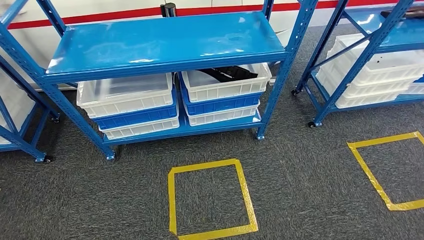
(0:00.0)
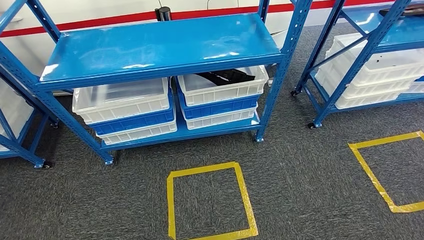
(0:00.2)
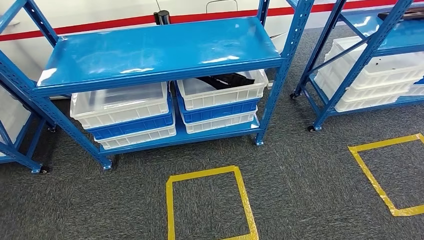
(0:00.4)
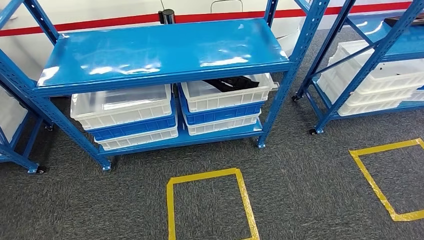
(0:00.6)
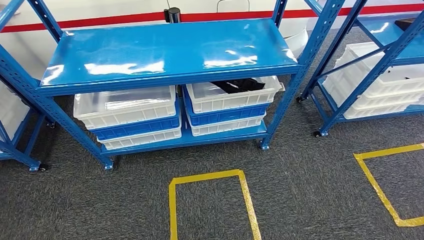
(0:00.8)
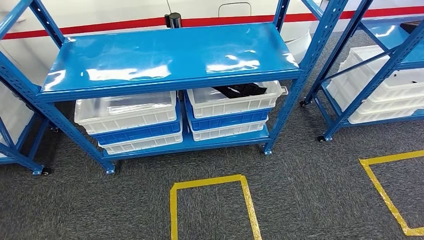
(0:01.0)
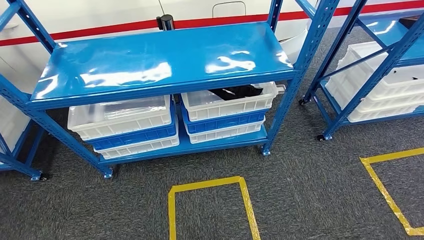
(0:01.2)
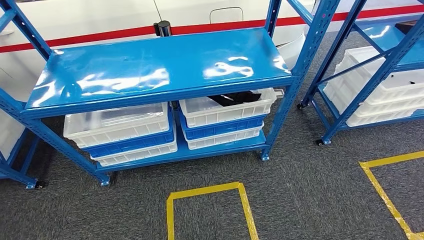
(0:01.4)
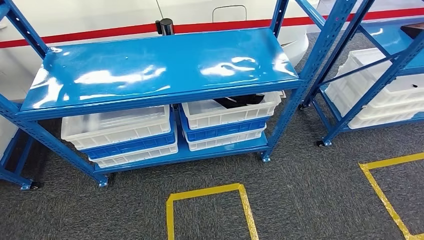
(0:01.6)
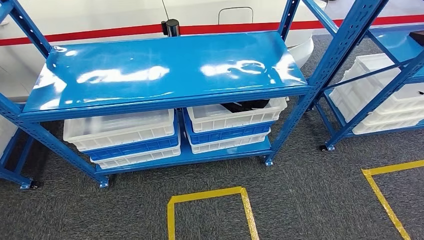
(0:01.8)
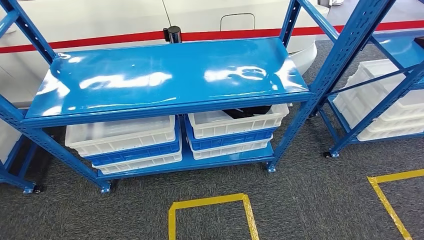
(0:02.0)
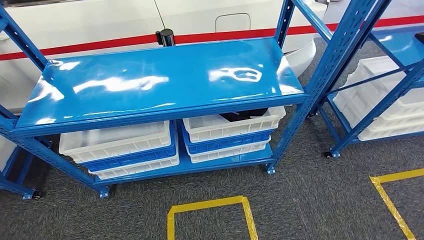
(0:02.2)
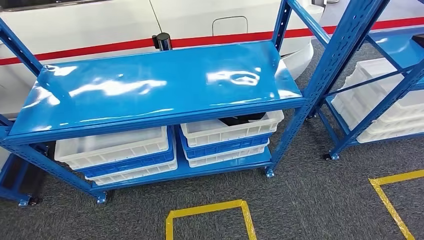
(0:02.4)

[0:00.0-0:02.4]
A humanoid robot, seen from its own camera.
Step, 0:00.0 to 0:02.2: Move to the initial position of the shelf.

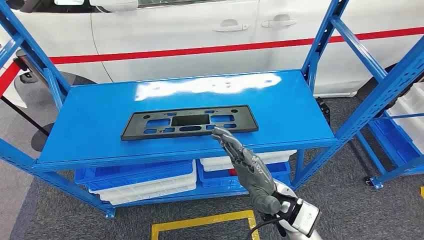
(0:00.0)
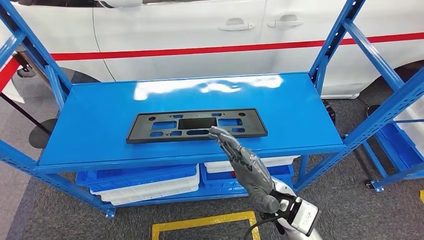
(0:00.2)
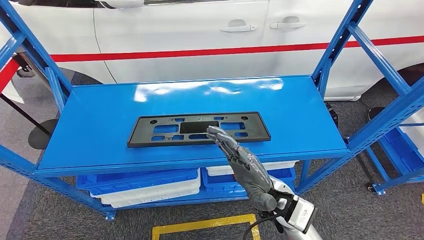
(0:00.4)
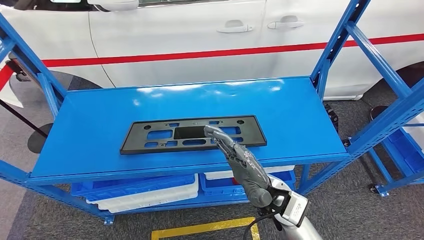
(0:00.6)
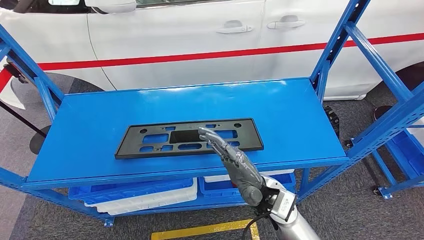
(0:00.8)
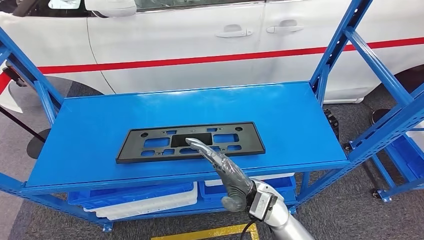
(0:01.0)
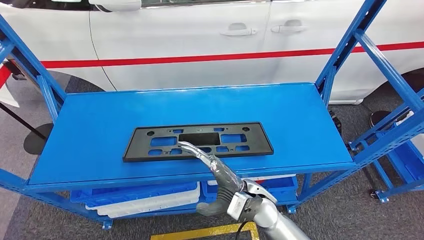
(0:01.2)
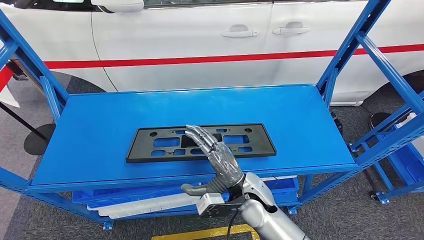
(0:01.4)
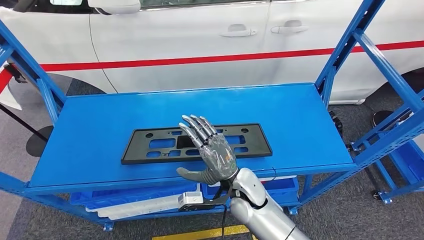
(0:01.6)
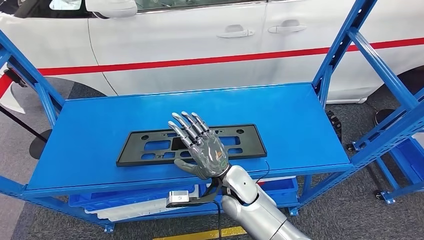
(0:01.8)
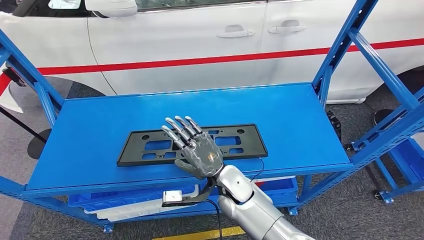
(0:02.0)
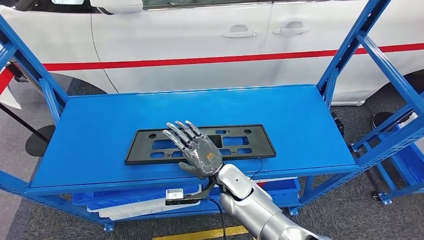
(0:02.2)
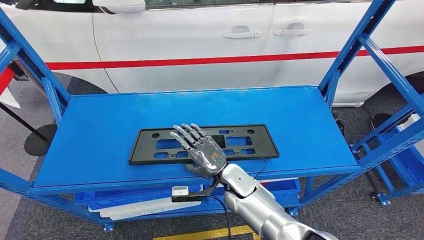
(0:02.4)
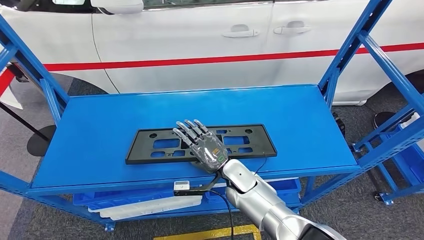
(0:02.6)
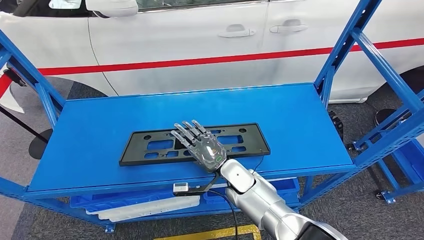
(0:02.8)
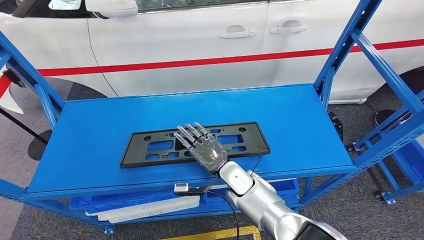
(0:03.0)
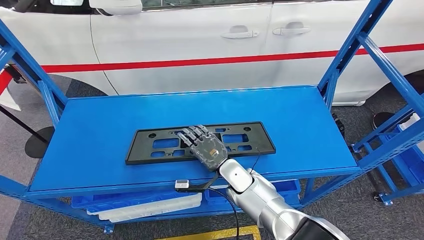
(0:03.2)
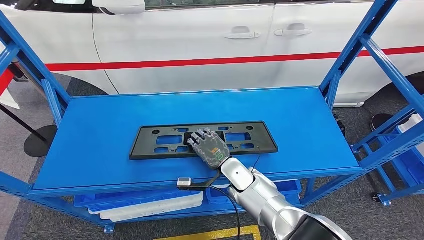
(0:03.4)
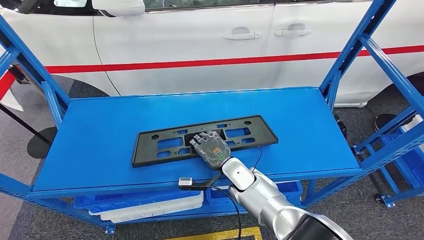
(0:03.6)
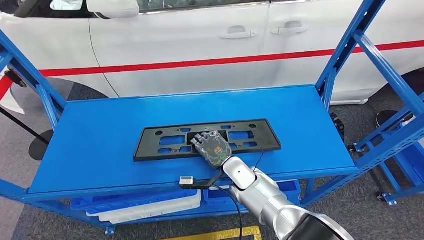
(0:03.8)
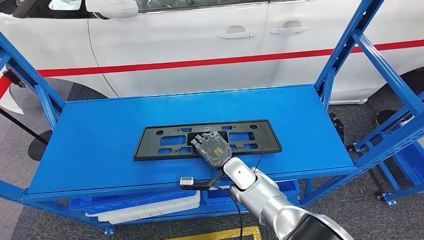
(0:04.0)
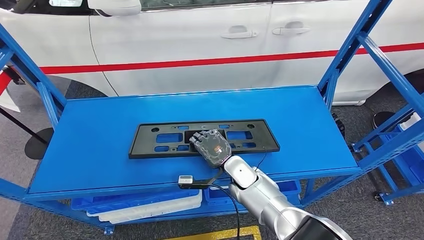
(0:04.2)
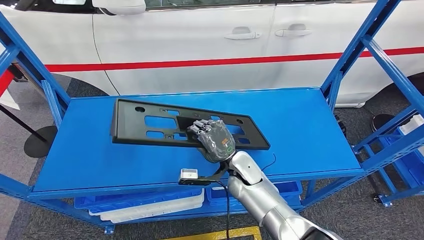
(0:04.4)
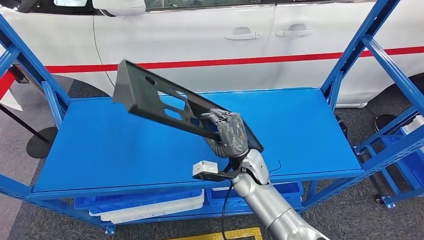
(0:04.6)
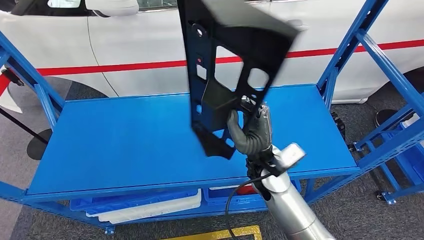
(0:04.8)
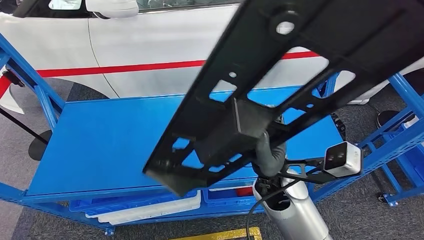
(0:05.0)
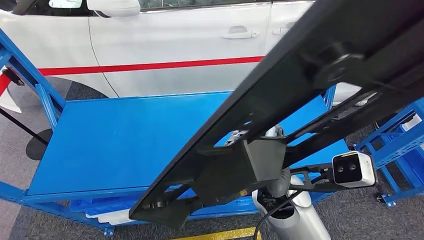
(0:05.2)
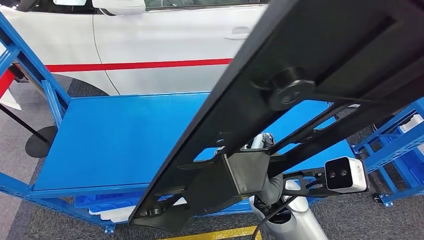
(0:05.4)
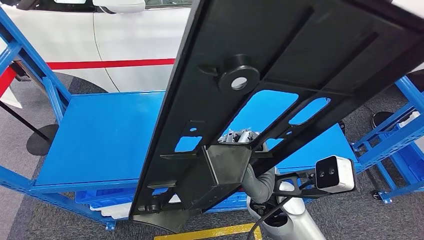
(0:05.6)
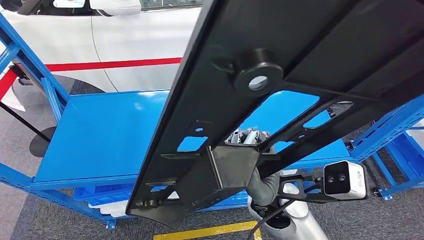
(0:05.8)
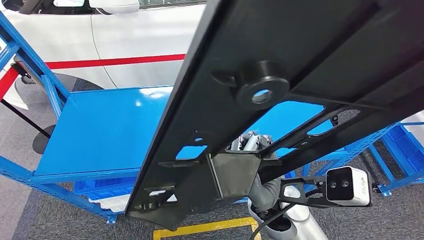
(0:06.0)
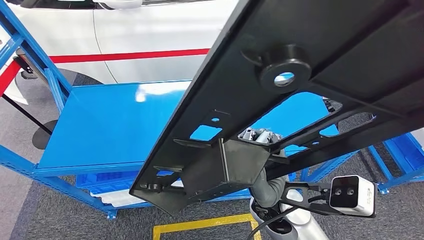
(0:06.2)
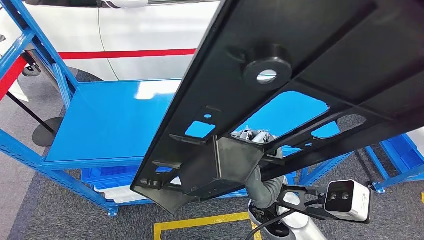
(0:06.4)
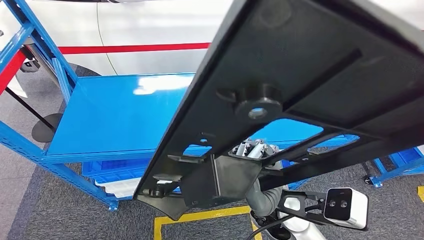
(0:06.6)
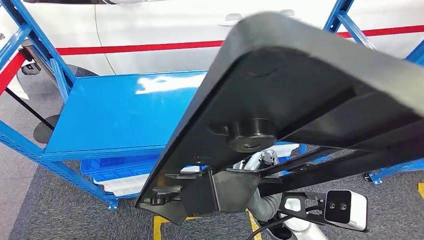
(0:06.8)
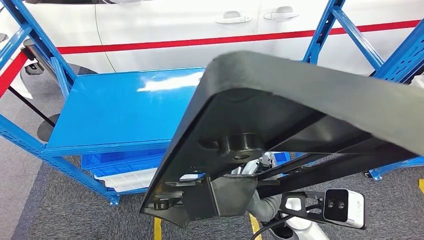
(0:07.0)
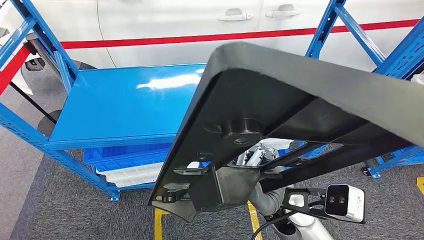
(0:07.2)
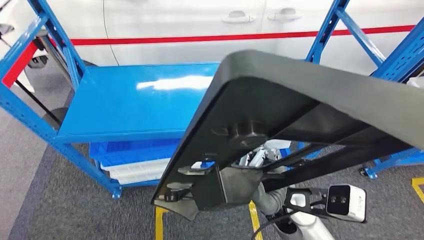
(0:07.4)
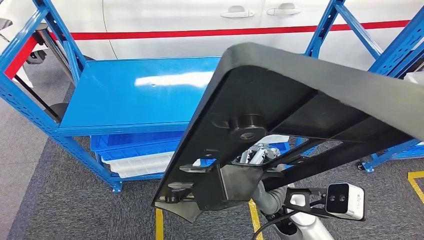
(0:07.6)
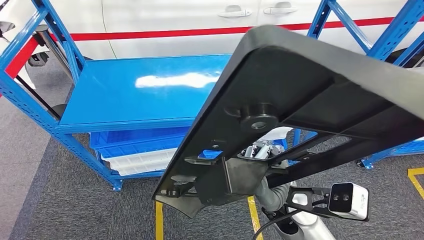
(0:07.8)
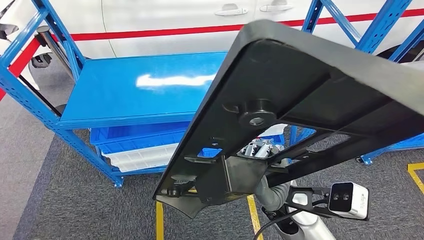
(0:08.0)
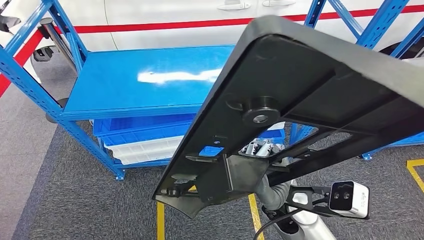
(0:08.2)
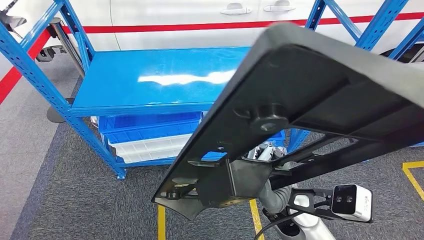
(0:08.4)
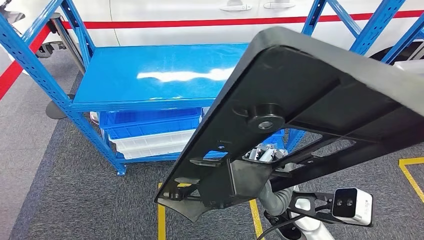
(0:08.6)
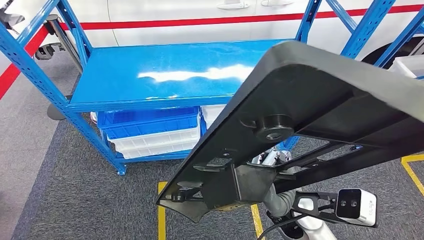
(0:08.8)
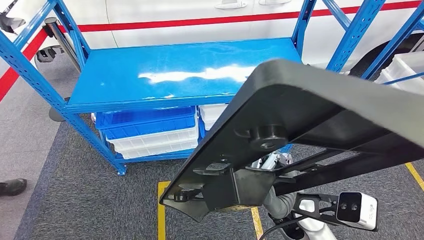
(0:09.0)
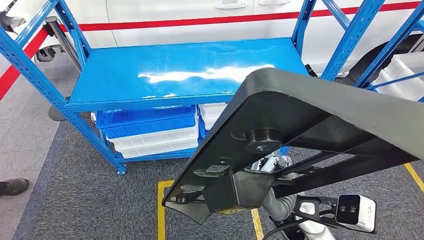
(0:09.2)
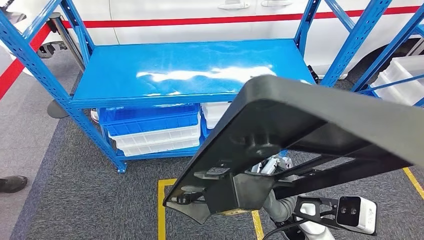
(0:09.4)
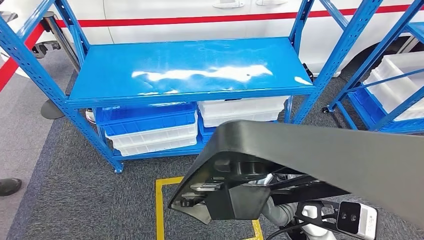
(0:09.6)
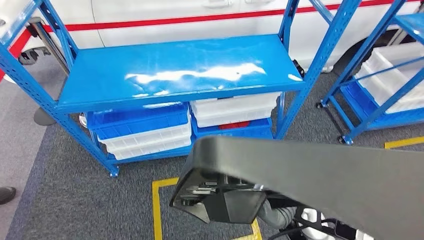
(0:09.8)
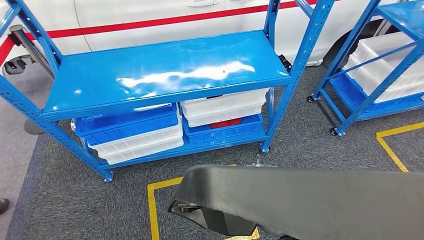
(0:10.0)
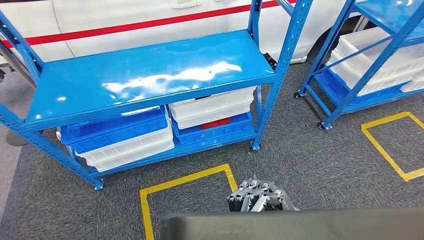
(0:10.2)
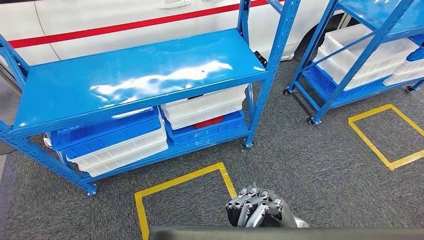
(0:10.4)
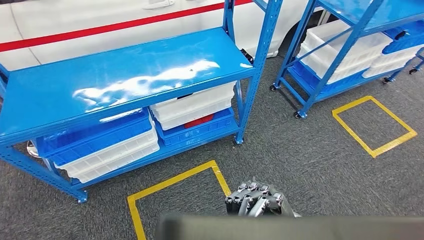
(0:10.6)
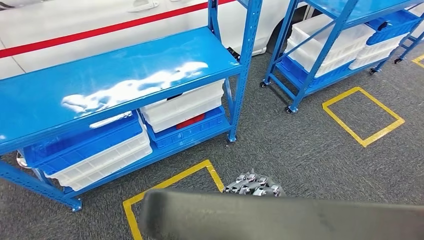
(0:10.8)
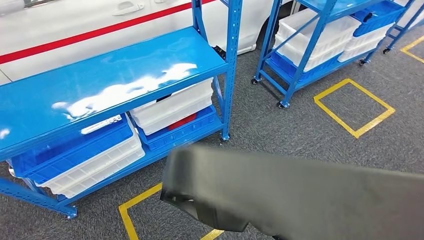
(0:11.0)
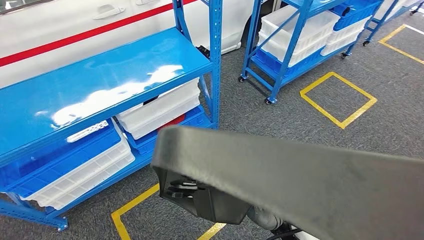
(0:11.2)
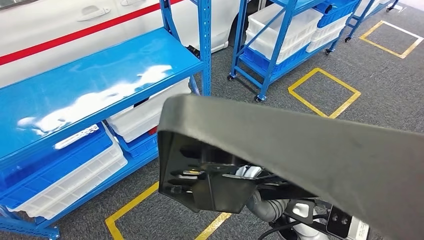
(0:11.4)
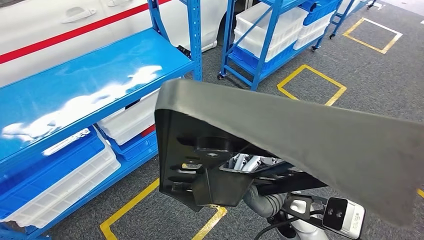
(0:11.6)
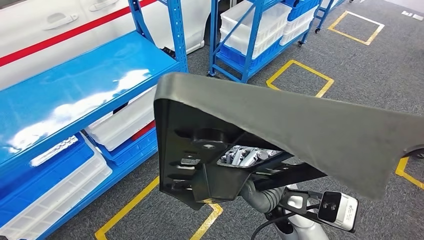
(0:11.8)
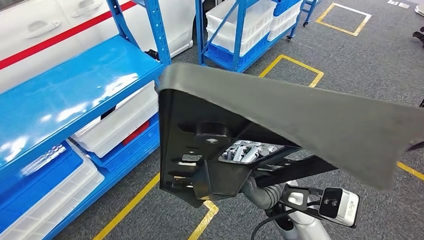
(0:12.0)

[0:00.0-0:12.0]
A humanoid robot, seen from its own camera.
Step, 0:00.0 to 0:05.6: Pick up the large material from the shelf.

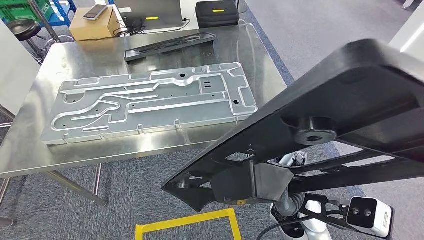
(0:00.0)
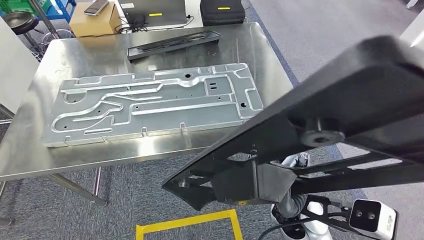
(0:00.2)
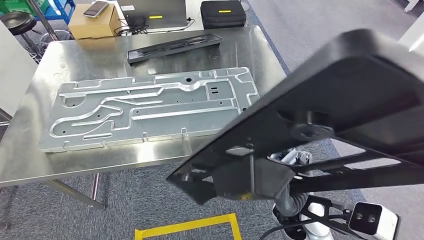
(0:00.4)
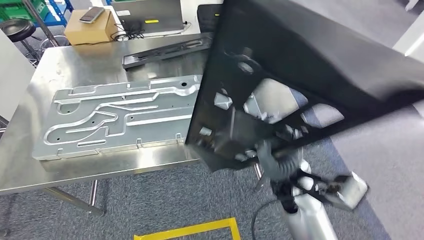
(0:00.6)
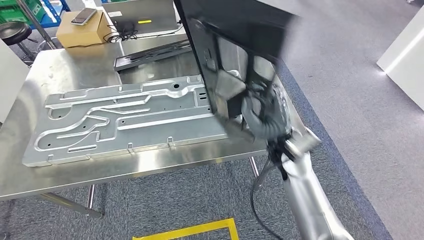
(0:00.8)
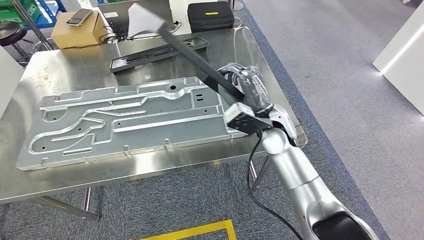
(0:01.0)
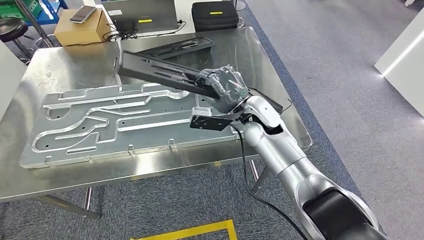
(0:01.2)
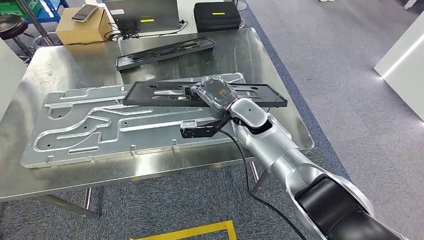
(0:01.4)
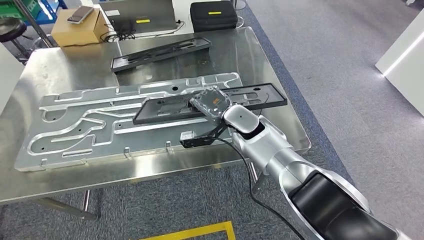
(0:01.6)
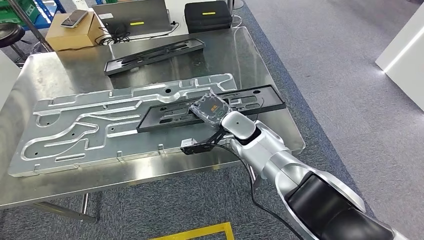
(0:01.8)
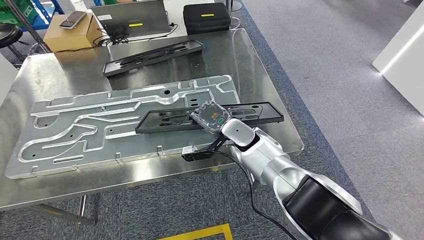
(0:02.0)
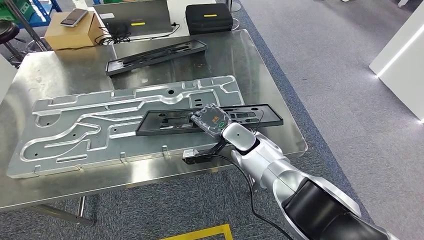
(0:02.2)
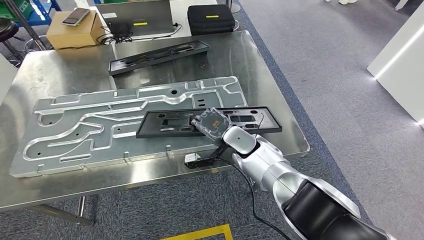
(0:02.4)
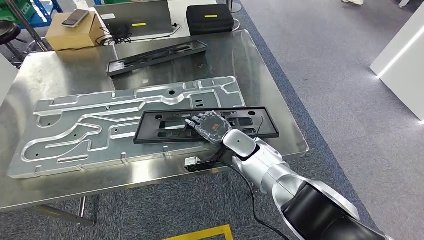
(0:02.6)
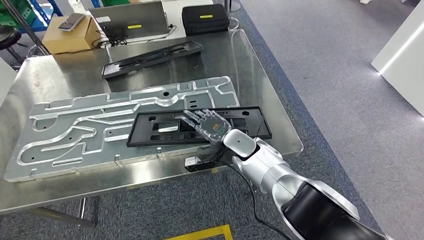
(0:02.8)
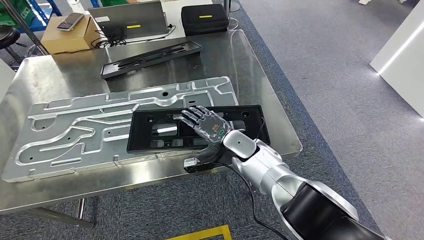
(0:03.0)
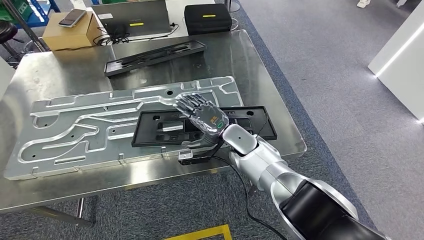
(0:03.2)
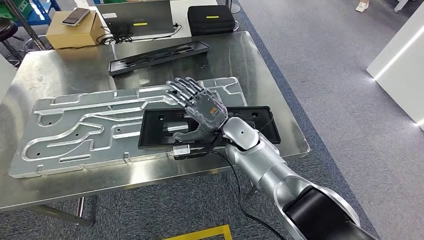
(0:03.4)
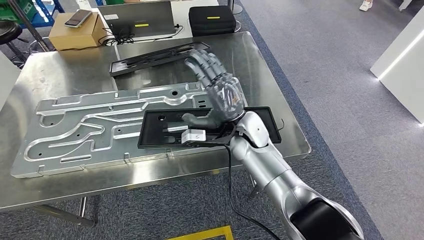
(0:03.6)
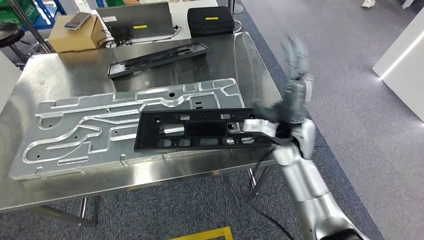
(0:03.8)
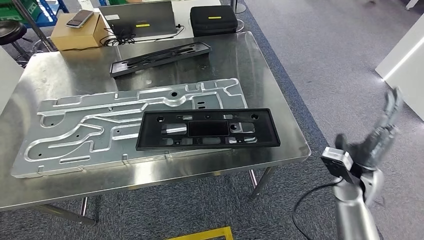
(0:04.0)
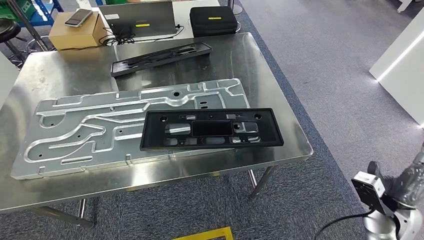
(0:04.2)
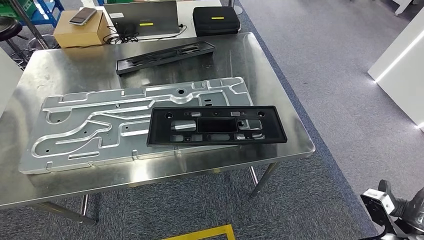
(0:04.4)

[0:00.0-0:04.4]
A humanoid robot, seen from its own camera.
Step, 0:00.6 to 0:04.2: Insert the large material into the corresponding slot on the workbench.
